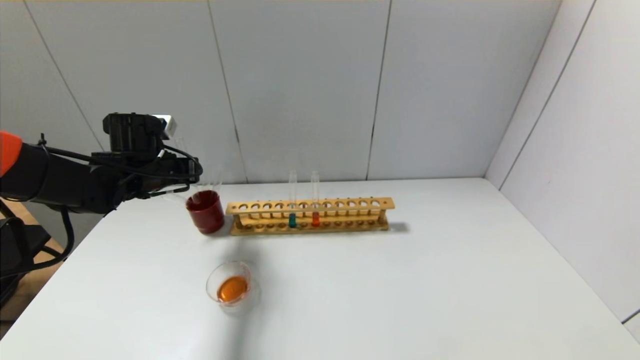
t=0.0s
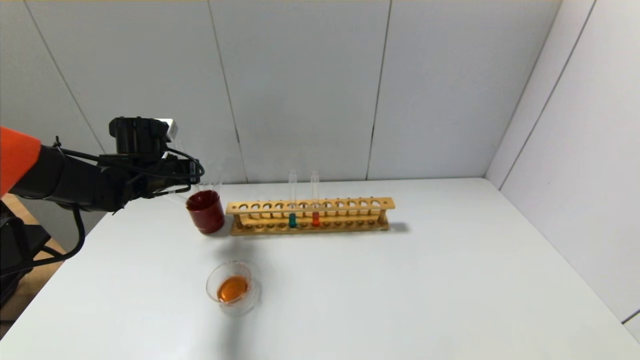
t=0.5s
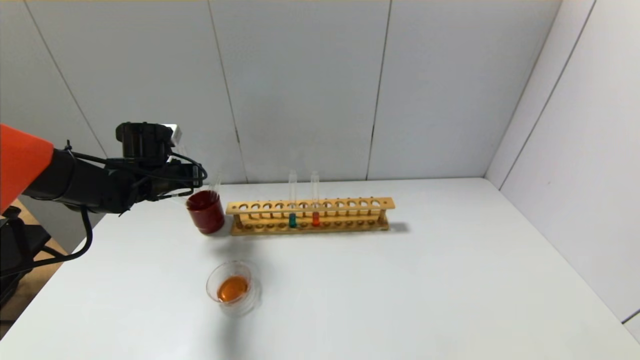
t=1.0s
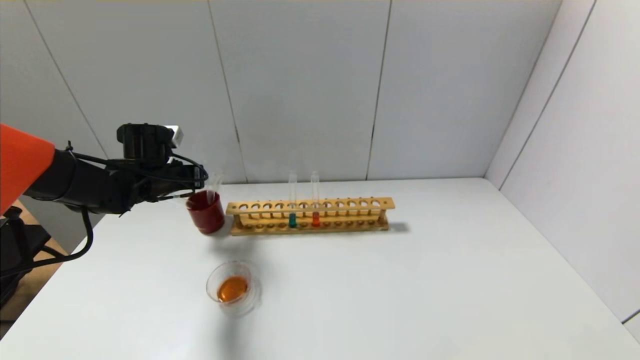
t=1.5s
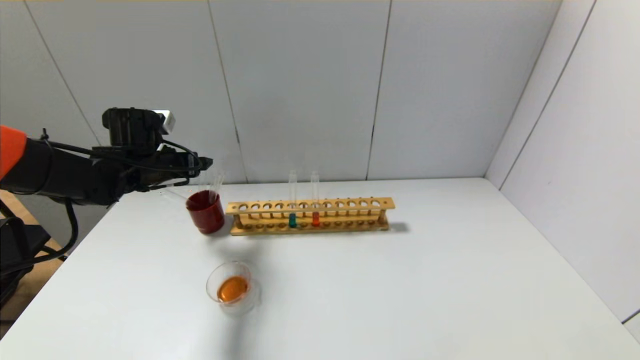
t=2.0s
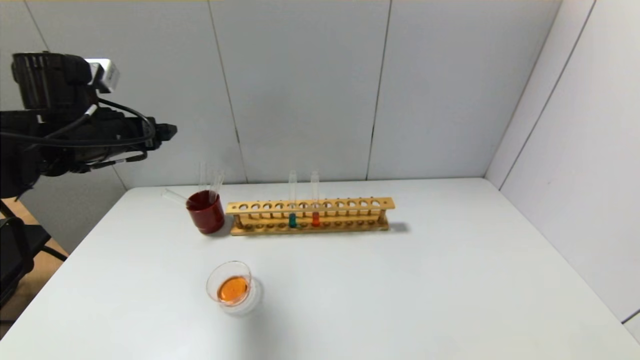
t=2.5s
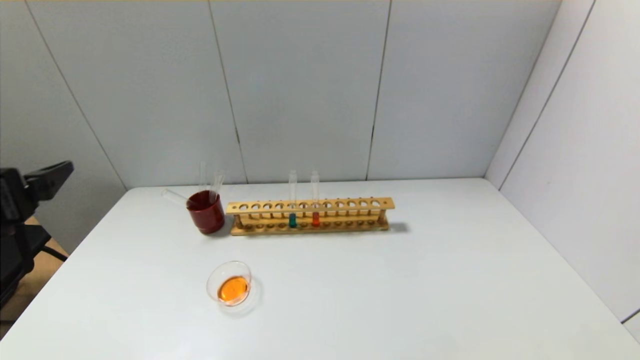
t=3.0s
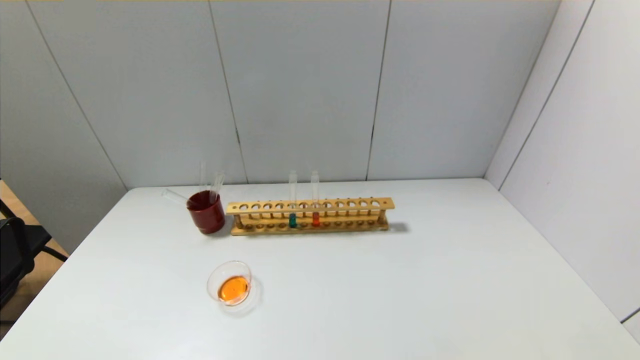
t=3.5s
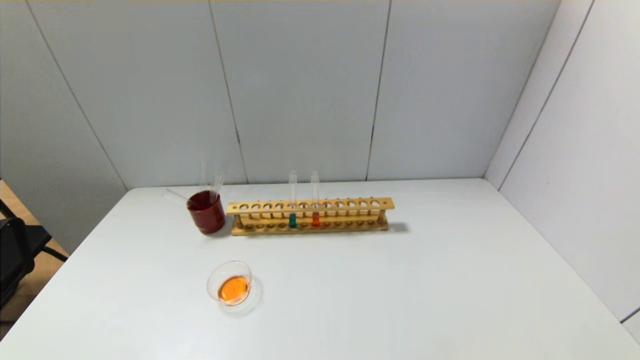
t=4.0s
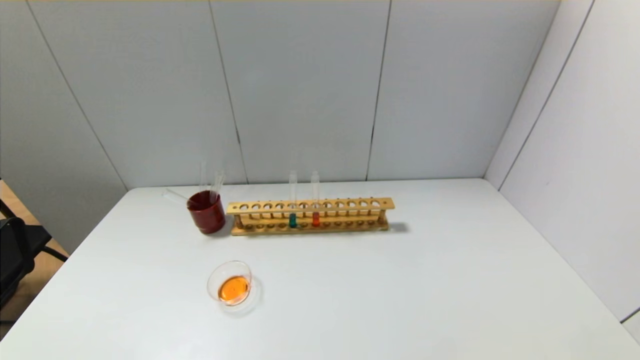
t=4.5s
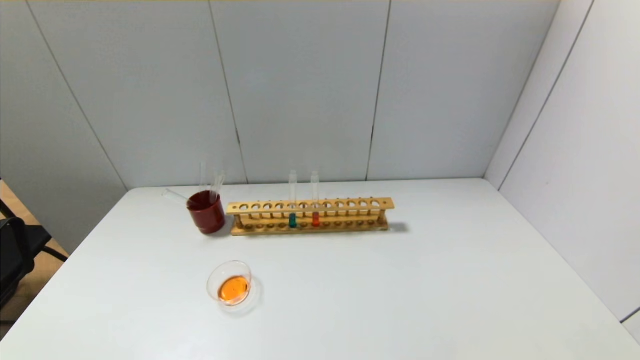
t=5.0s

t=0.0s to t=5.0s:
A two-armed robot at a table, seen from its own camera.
t=0.0s to t=2.5s: The left gripper shifts some 10 cm upward and backward, and opens up.
t=2.5s to t=5.0s: The left gripper goes about 40 cm backward and downward.

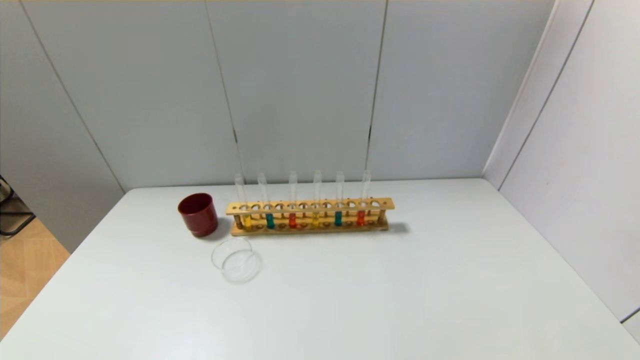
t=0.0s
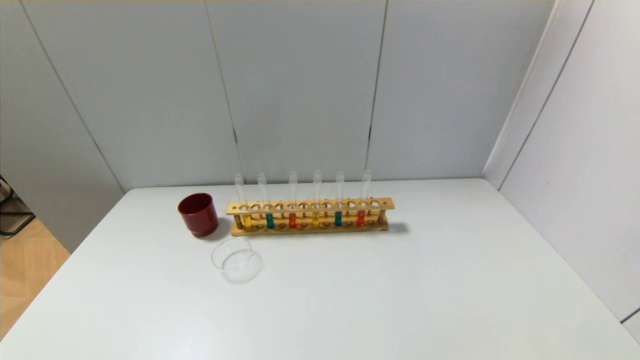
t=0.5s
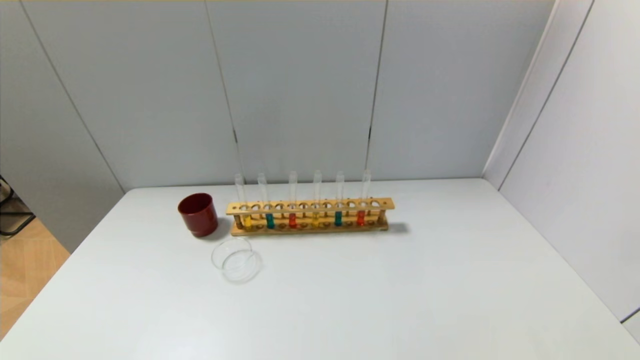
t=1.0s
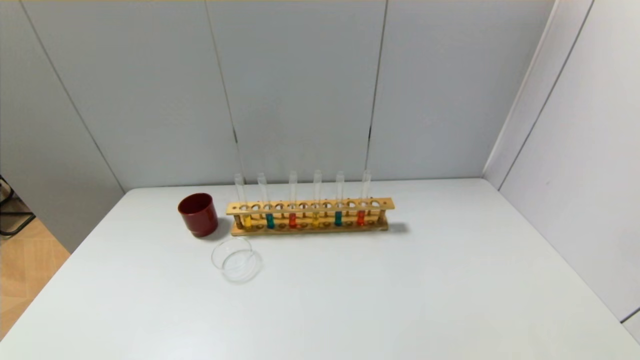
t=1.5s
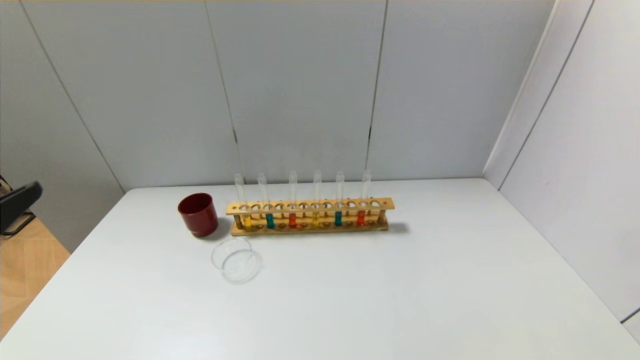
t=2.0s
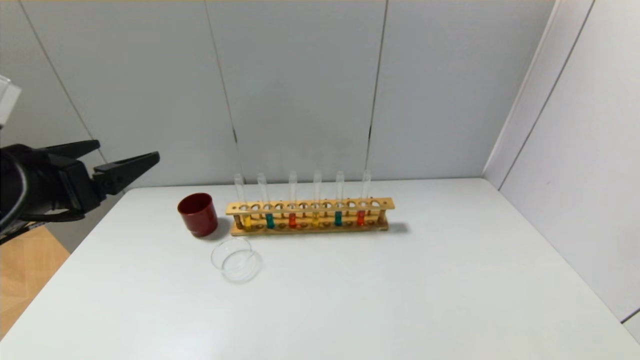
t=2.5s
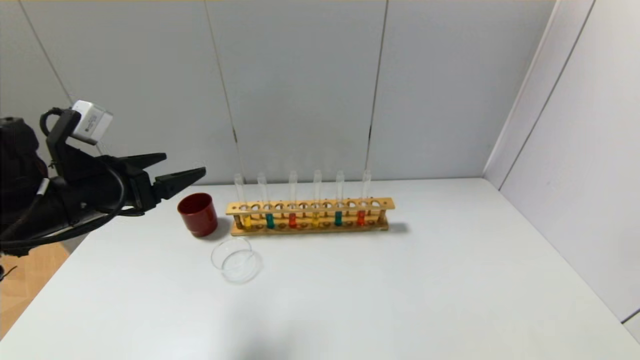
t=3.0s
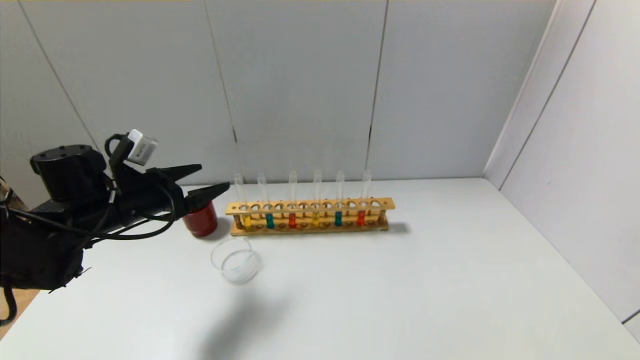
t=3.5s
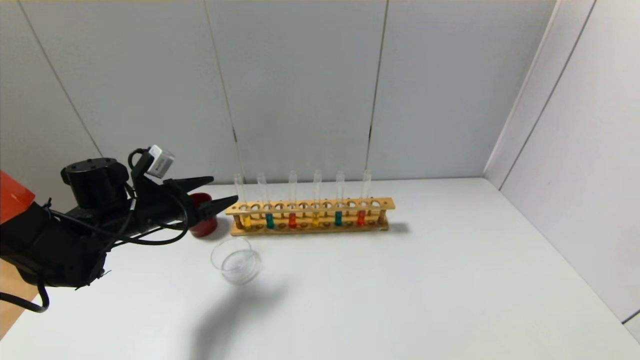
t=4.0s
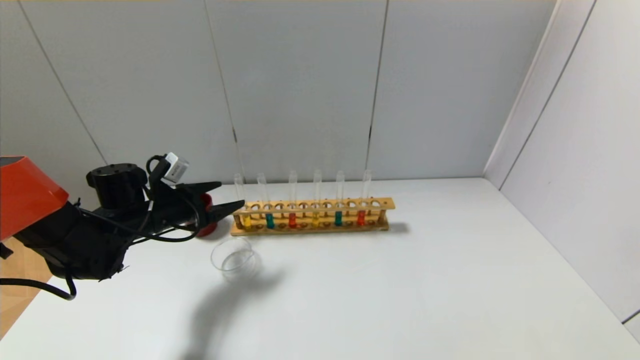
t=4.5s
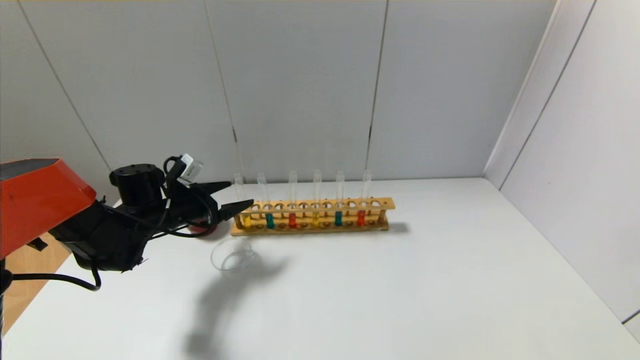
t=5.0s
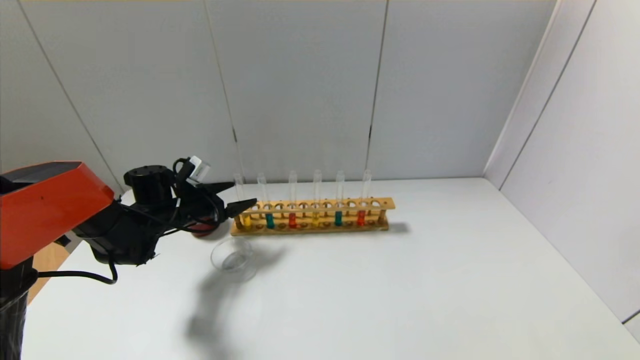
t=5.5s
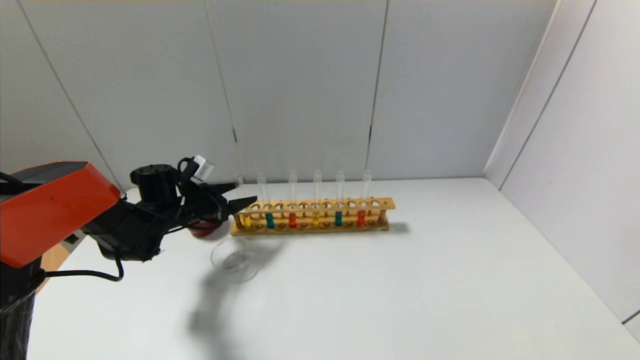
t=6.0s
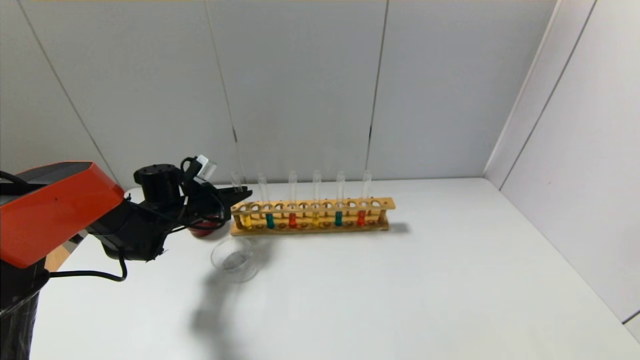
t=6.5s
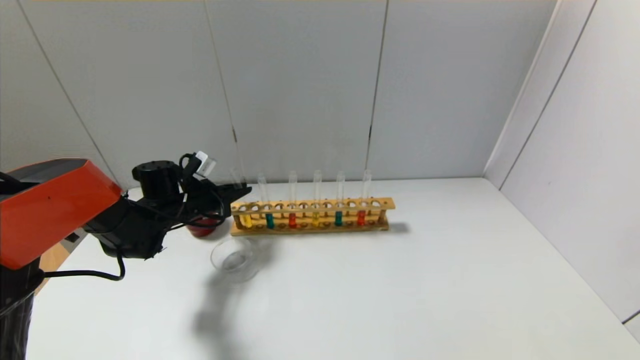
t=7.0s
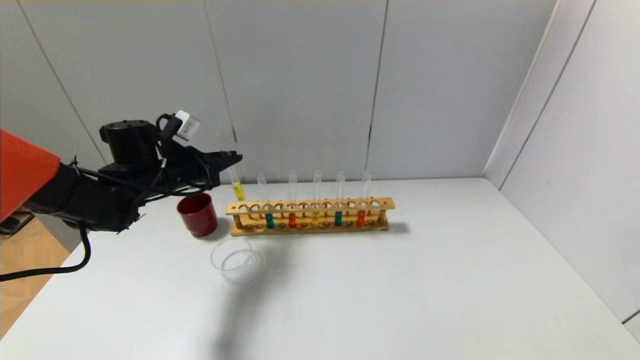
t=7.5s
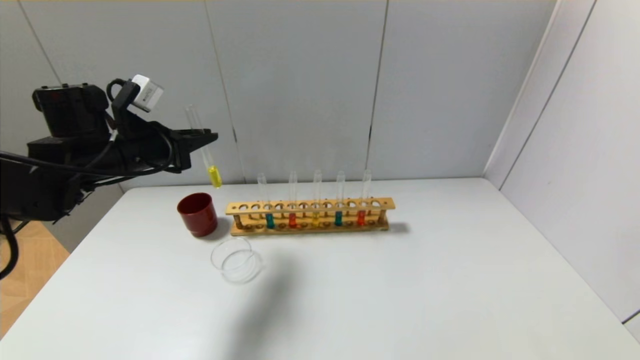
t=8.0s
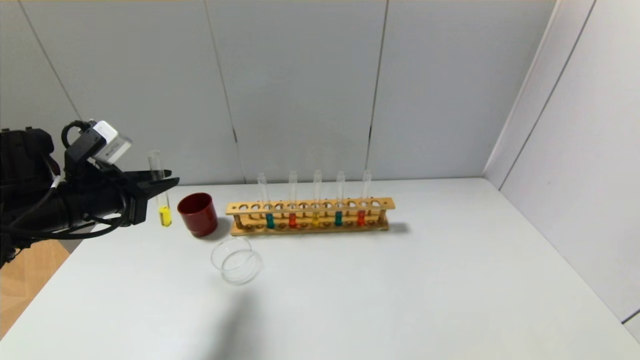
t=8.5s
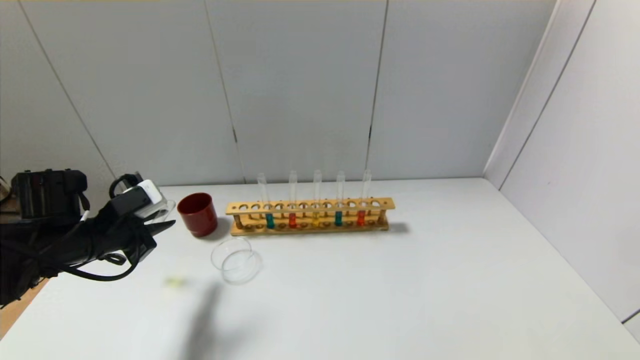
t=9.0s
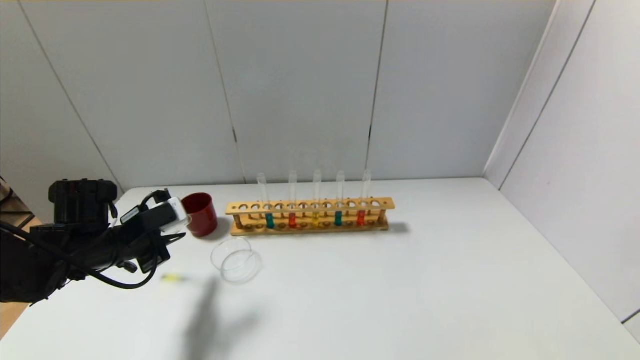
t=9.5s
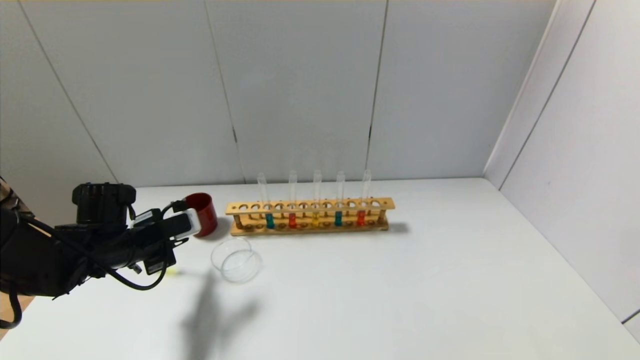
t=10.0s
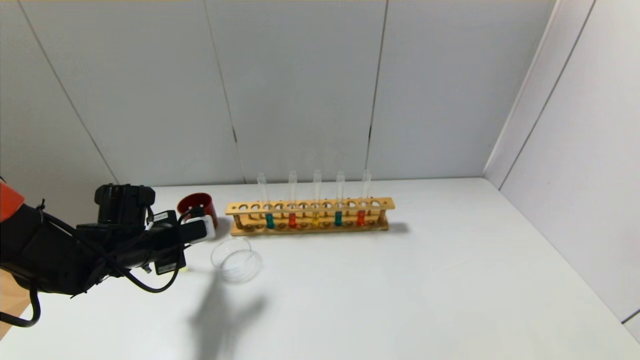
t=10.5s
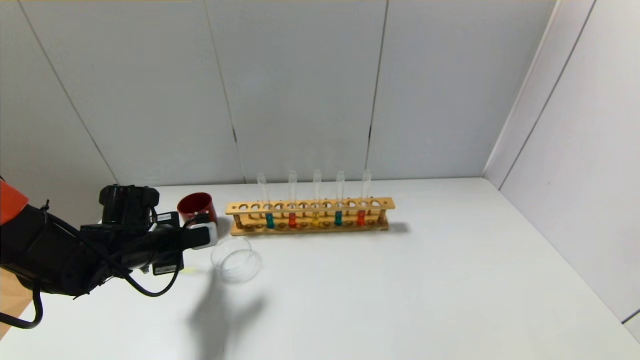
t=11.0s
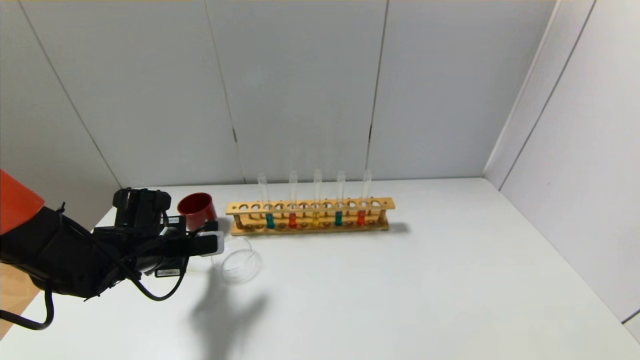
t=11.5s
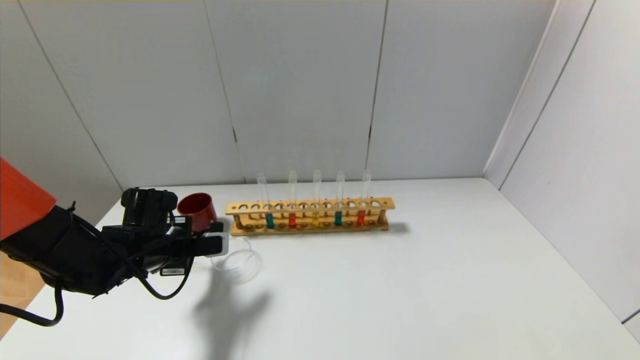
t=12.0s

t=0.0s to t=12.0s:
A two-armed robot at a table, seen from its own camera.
Step, t=0.0s to t=6.5s: Grasp the yellow reagent with the left gripper.
t=2.0s to t=4.0s: The left gripper moves forward and downward, roughly 30 cm.
t=4.0s to t=6.0s: The left gripper is displaced forward and downward by some 10 cm.
t=6.0s to t=8.0s: The left gripper is displaced upward and backward by some 20 cm, and closes its fingers.
t=8.0s to t=10.0s: The left gripper goes approximately 15 cm downward.

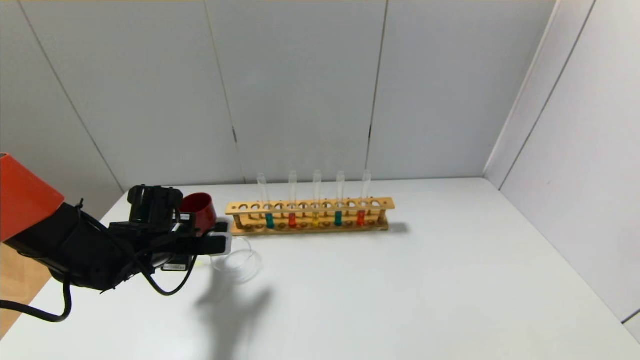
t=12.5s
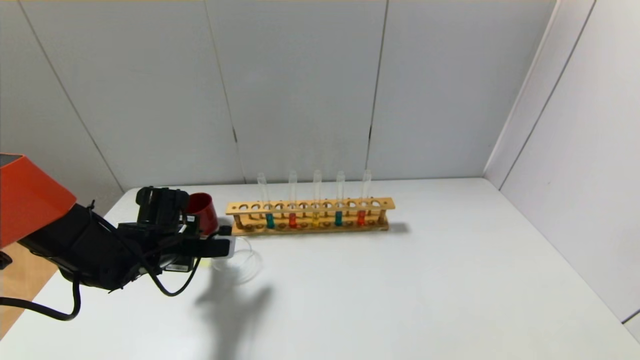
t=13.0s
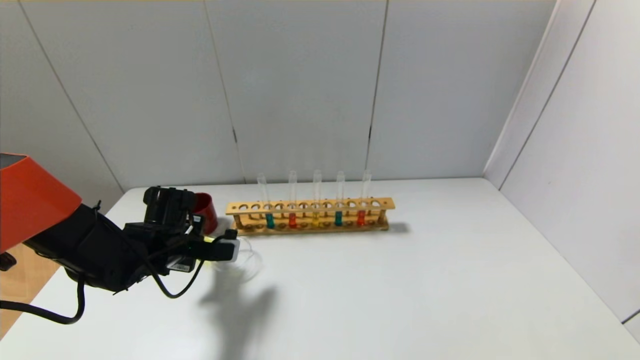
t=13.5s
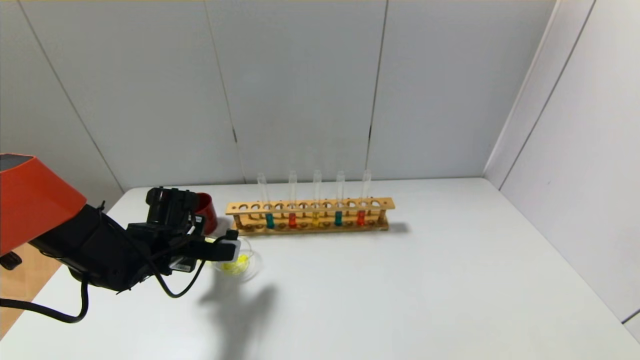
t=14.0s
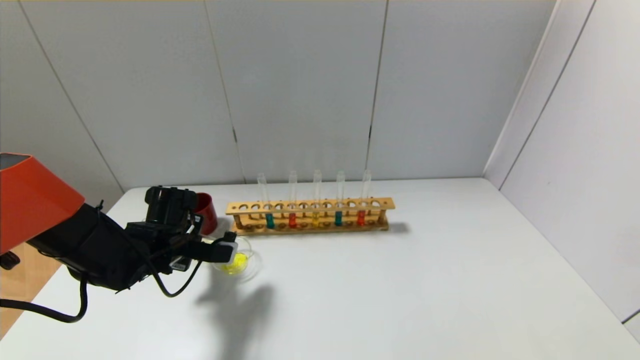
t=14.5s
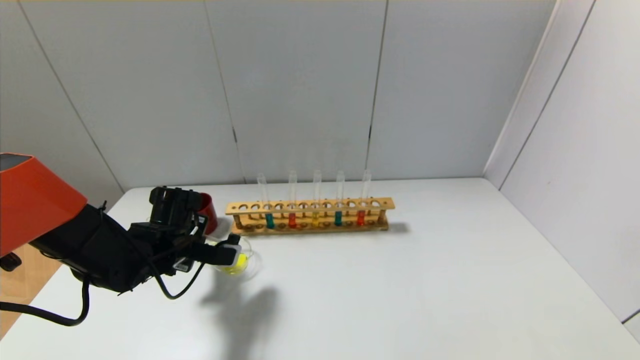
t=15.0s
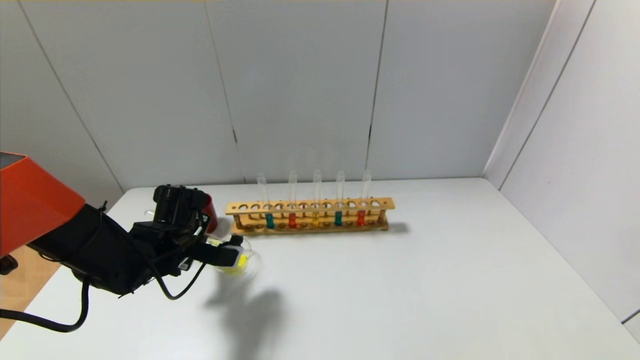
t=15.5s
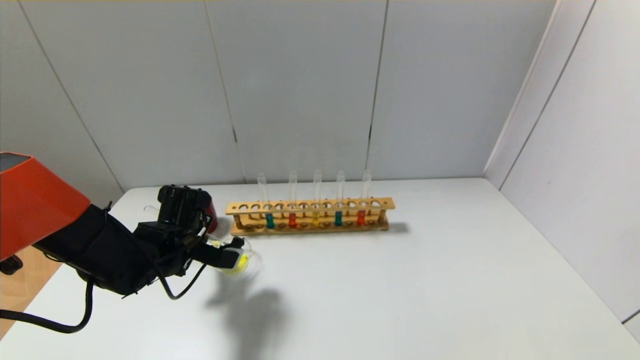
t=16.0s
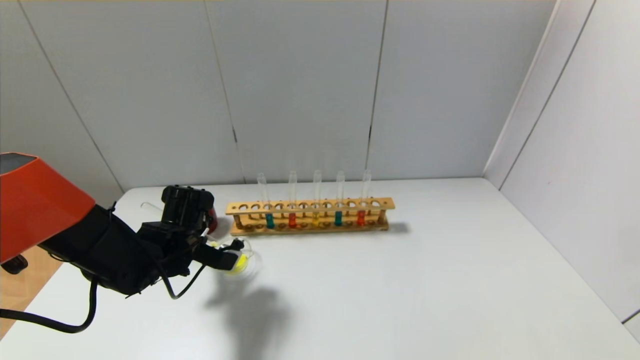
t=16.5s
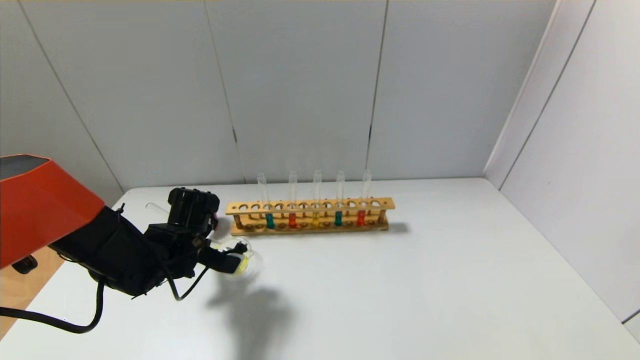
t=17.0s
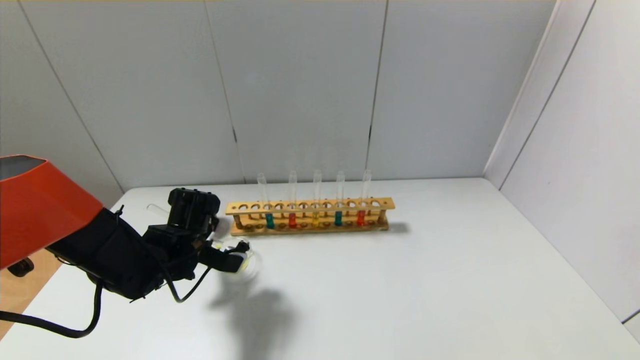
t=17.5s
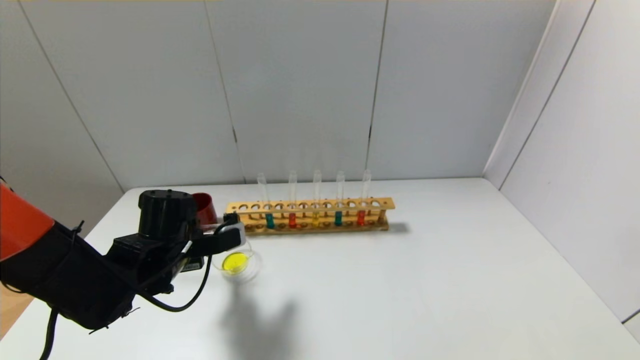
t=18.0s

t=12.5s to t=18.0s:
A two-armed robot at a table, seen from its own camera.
Step, t=12.5s to t=17.5s: Pour the yellow reagent into the graduated cylinder with the left gripper.
t=12.5s to t=14.5s: The grippers move only a little.
t=14.5s to t=16.0s: There are only small adjustments of the grippers.
